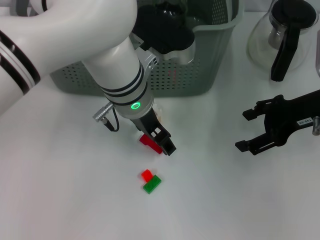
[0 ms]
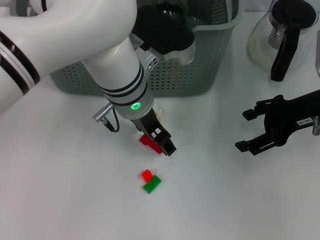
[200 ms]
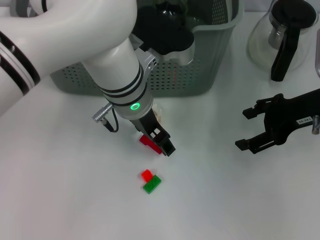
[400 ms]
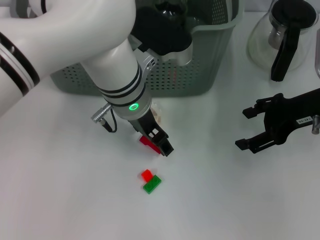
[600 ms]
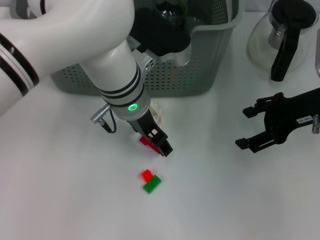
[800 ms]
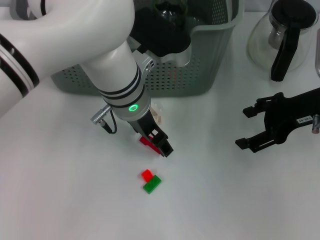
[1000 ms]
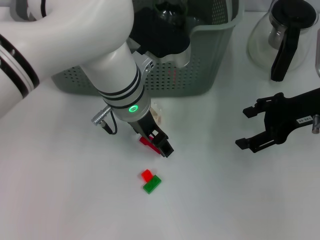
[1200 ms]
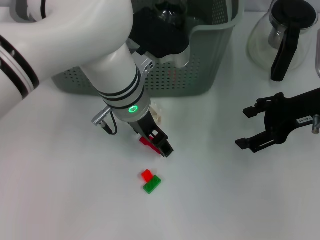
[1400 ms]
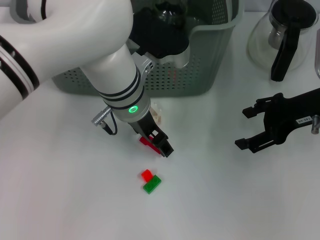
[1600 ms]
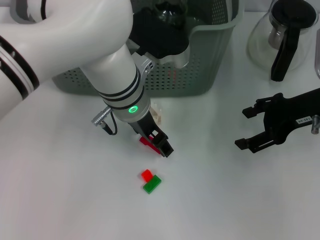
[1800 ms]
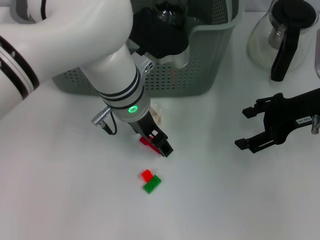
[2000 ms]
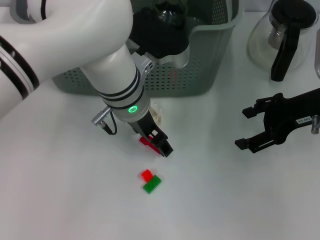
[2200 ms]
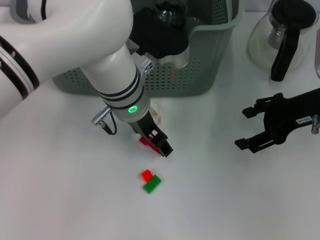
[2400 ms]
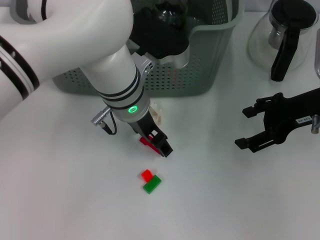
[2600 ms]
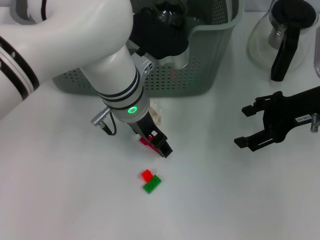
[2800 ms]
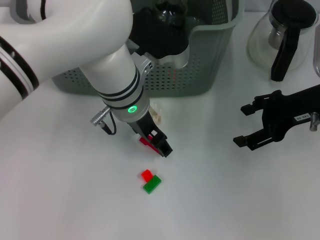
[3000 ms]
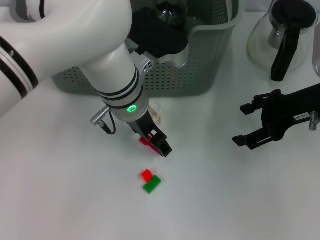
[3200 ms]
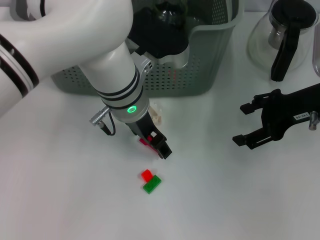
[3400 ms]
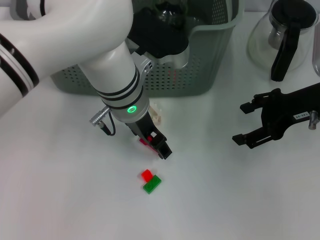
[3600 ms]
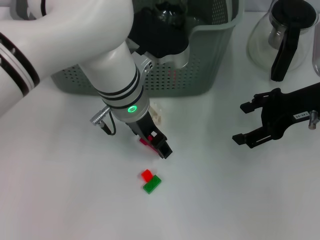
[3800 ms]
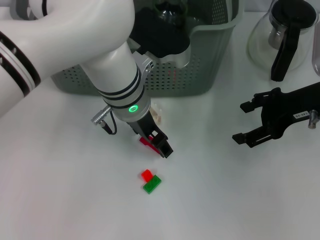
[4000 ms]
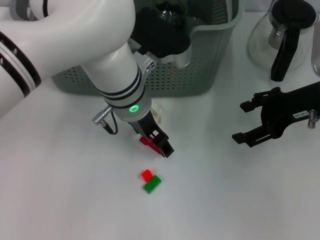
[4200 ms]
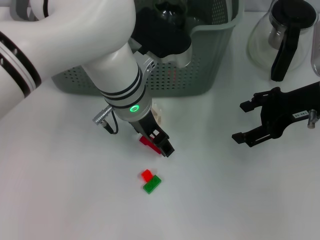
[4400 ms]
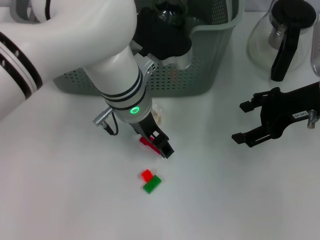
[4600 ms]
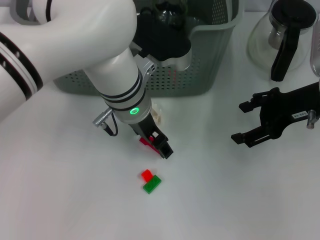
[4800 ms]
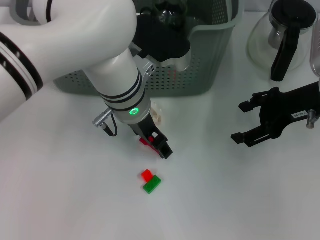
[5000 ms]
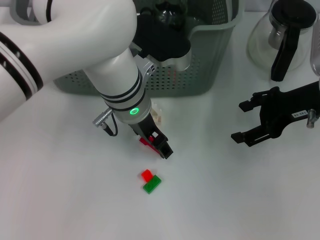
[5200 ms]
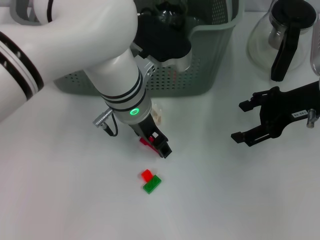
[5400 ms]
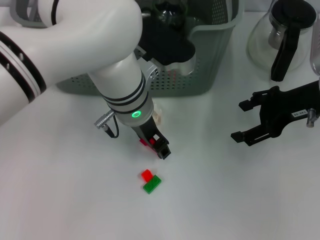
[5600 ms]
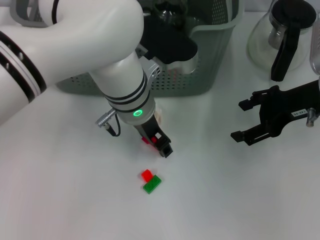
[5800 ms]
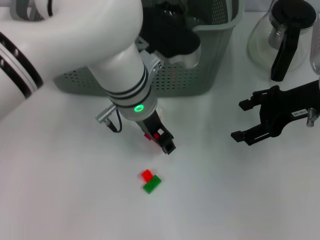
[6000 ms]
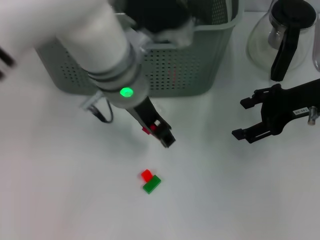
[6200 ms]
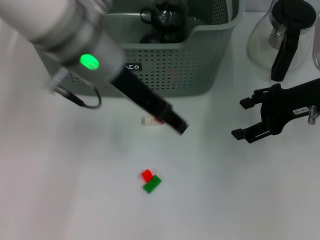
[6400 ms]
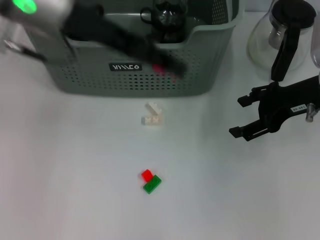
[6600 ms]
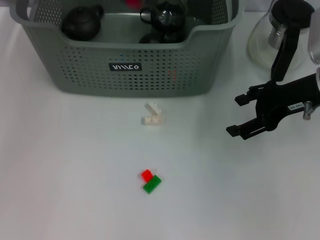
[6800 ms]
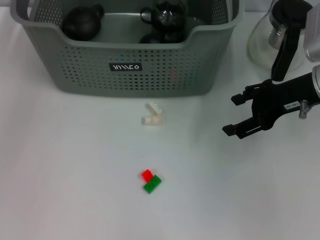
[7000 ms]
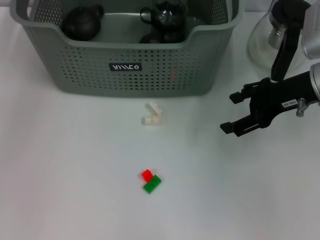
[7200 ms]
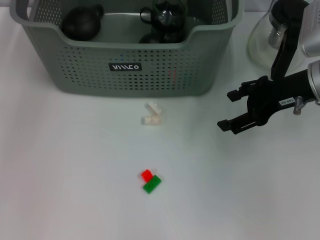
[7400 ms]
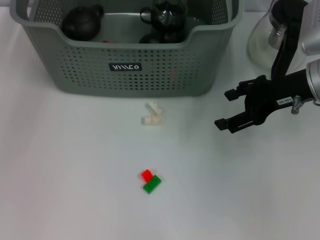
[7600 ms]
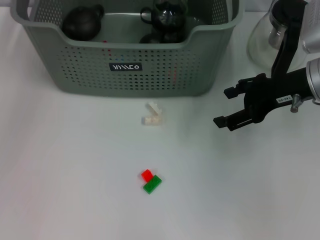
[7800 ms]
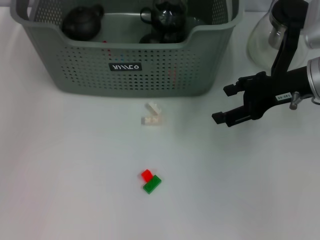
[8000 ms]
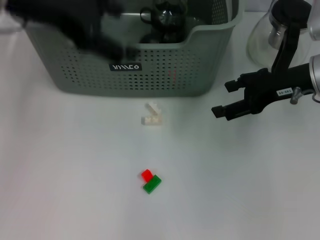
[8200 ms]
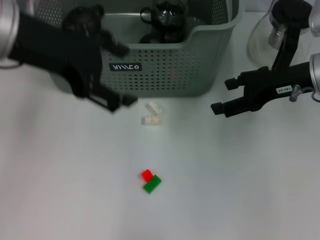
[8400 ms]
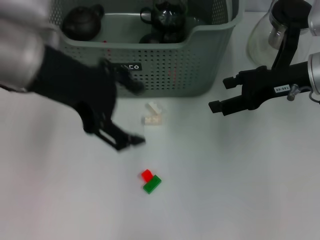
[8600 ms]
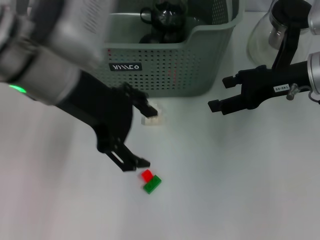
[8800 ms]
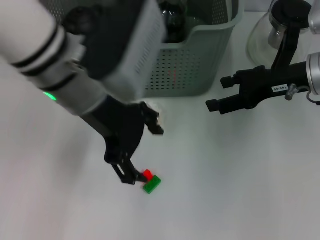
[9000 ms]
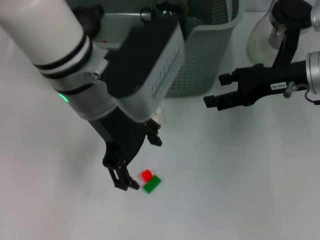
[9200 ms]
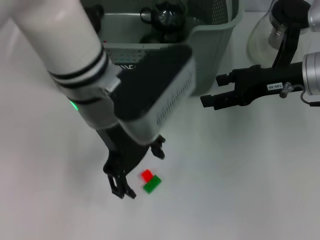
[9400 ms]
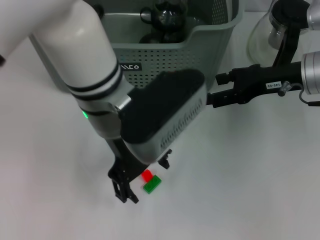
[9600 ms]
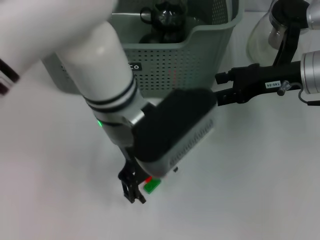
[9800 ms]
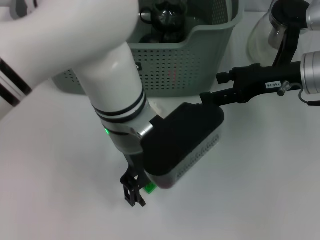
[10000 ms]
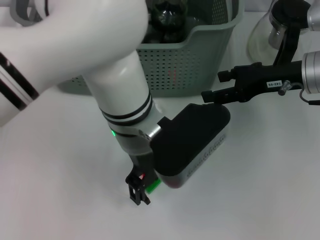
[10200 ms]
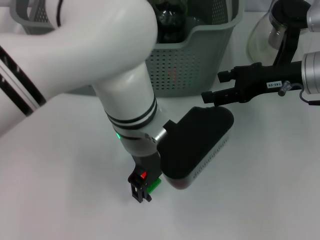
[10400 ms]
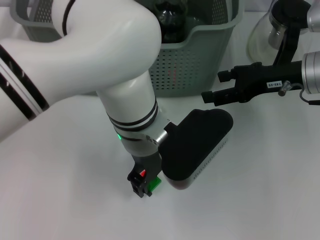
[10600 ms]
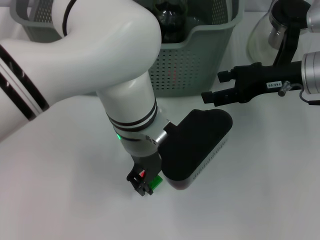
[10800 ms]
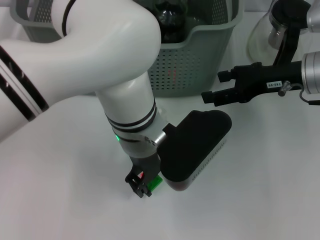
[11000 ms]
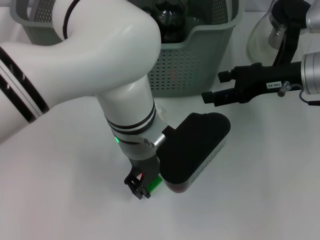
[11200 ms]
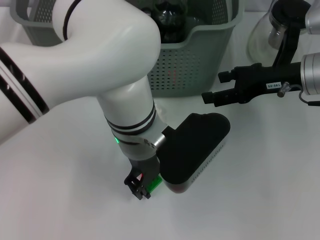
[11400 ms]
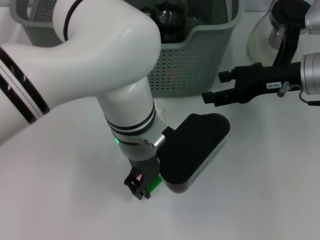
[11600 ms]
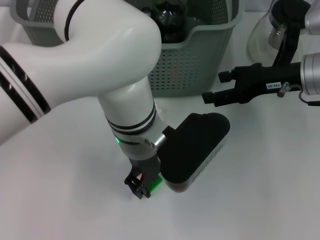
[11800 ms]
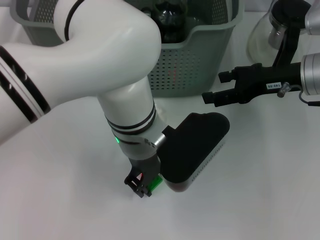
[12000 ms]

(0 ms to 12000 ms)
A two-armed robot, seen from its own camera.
Task of the whole recording: pick up the teacup on the table and place it into the storage bin, pick up the block on the table and place it into the storage bin.
Step, 0 ms - 5600 ms: Grasp the red block with left gripper.
Step, 5800 ms - 7800 ms: Place the red block in the storage box with left gripper.
0 ms - 4400 ms: The two grippers keep their place.
4400 ms - 6000 ms: Neither gripper changes place.
6000 ms - 7600 ms: The left gripper shifts some 25 cm to the left, upward and forward.
7600 ms - 9000 ms: The left gripper goes approximately 20 cm backward, to the right and downward.
9000 ms - 10400 ms: The left gripper goes roughly 10 cm to the right and downward.
10400 ms - 12000 ms: The left gripper closes.

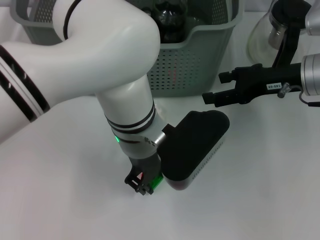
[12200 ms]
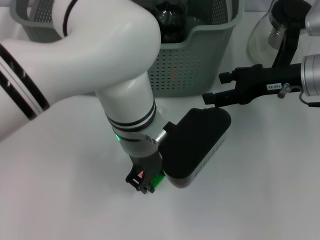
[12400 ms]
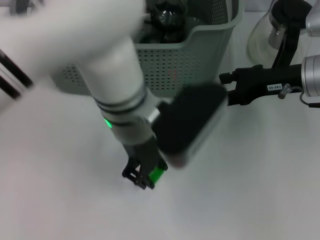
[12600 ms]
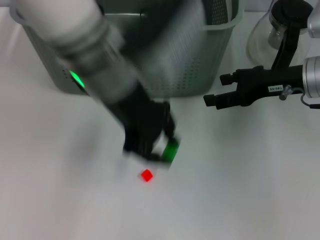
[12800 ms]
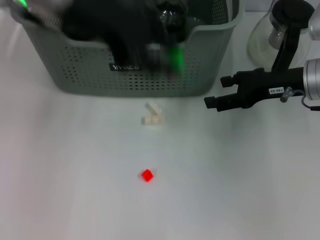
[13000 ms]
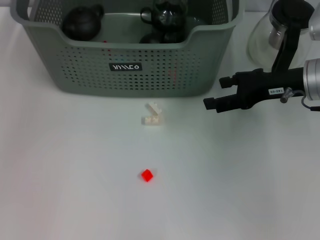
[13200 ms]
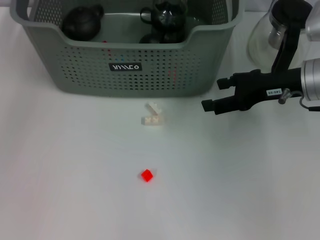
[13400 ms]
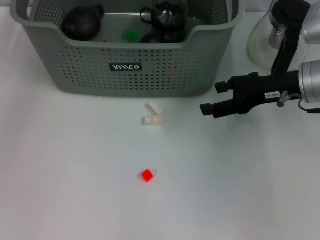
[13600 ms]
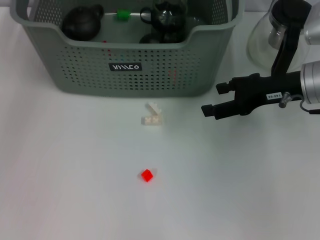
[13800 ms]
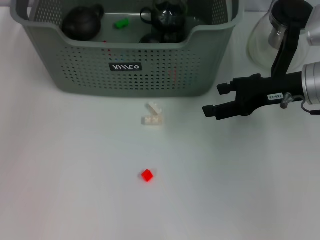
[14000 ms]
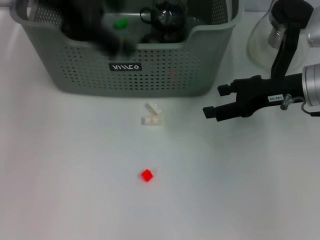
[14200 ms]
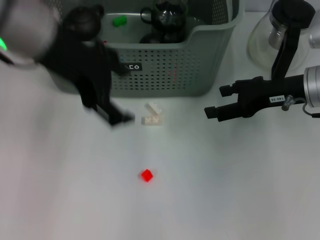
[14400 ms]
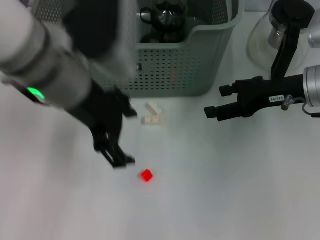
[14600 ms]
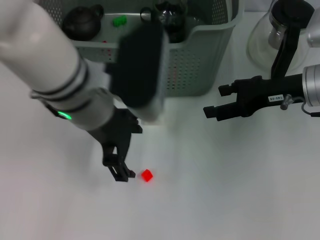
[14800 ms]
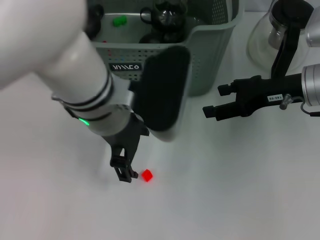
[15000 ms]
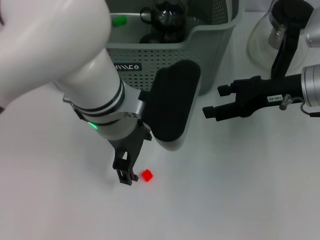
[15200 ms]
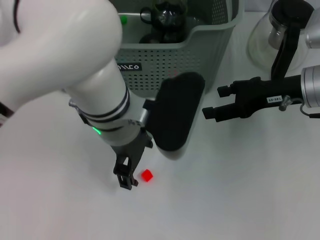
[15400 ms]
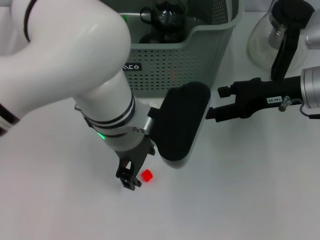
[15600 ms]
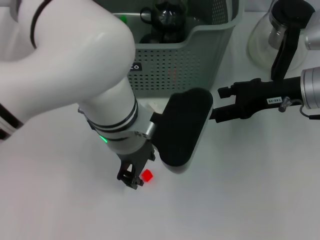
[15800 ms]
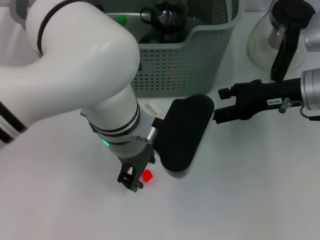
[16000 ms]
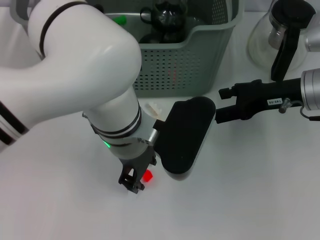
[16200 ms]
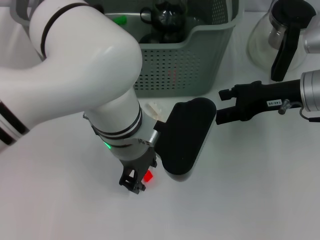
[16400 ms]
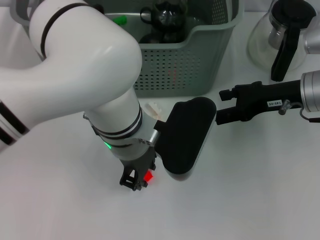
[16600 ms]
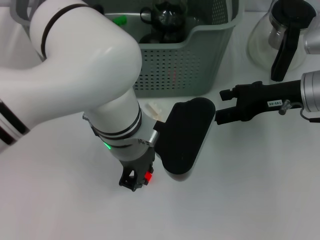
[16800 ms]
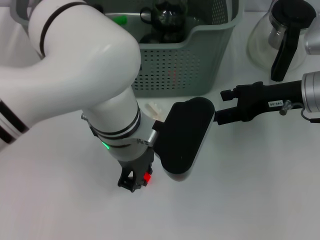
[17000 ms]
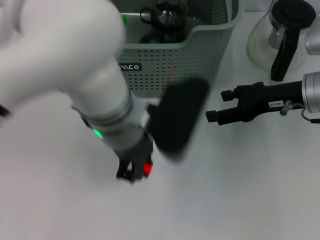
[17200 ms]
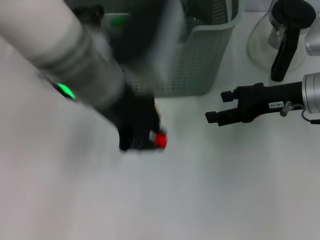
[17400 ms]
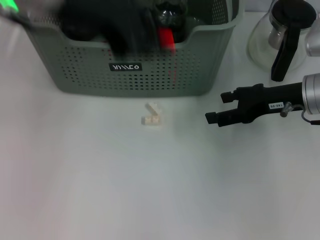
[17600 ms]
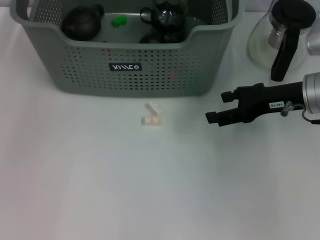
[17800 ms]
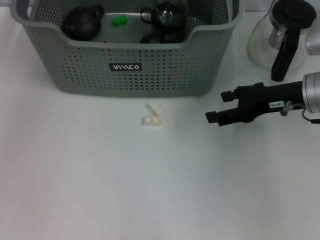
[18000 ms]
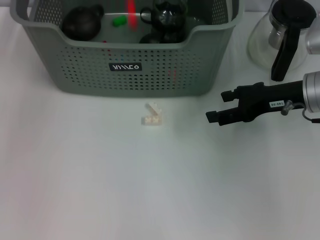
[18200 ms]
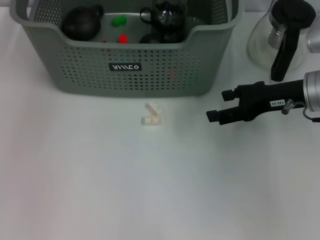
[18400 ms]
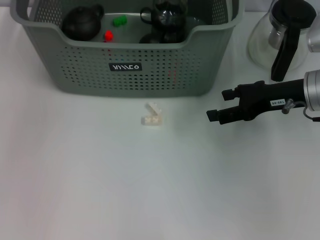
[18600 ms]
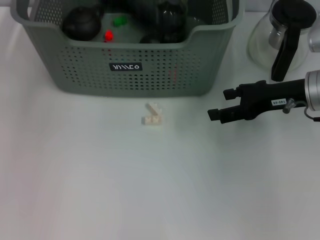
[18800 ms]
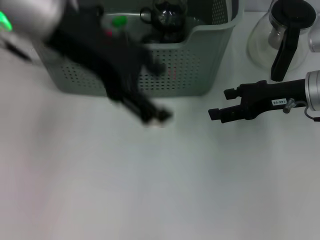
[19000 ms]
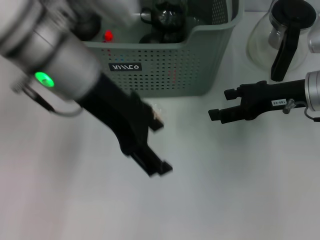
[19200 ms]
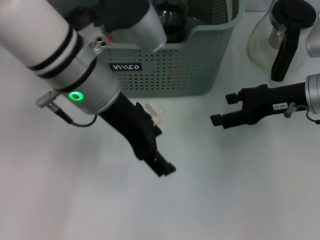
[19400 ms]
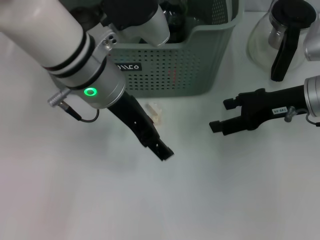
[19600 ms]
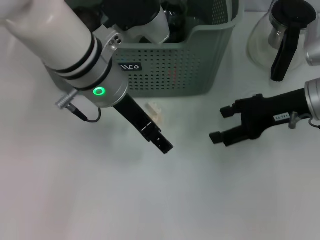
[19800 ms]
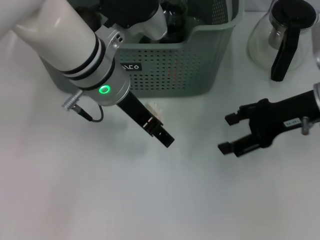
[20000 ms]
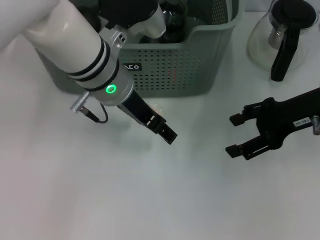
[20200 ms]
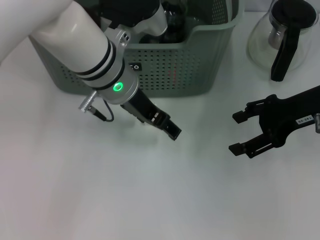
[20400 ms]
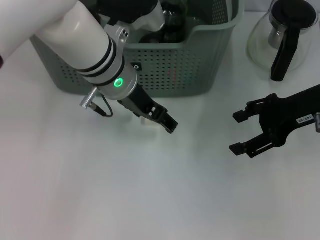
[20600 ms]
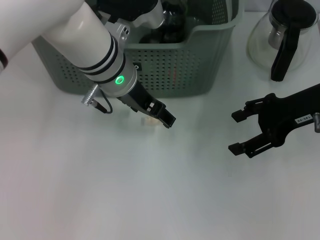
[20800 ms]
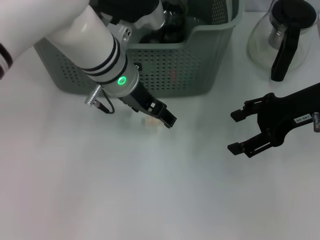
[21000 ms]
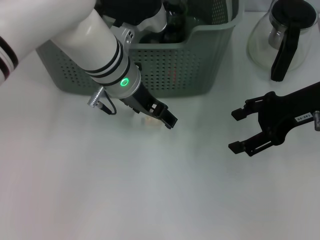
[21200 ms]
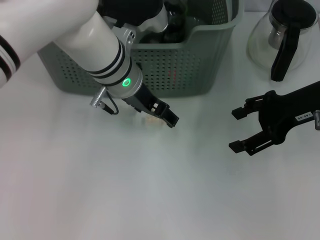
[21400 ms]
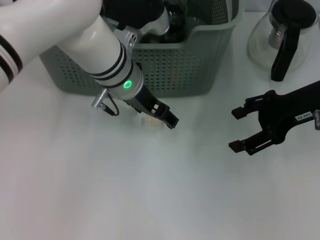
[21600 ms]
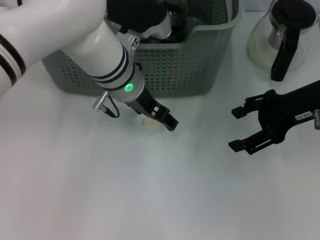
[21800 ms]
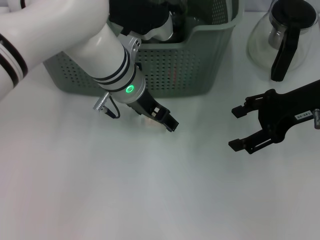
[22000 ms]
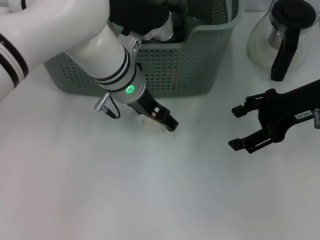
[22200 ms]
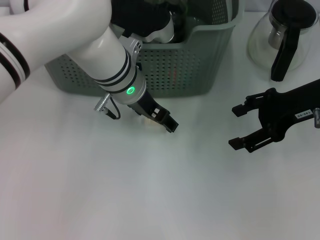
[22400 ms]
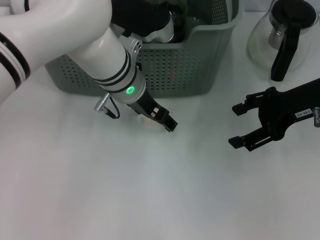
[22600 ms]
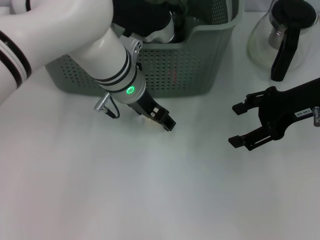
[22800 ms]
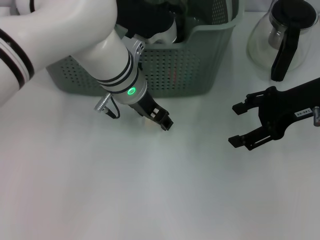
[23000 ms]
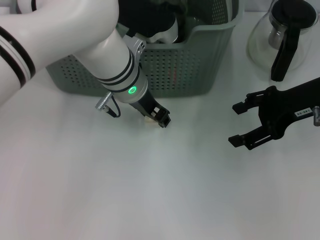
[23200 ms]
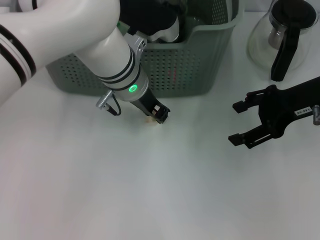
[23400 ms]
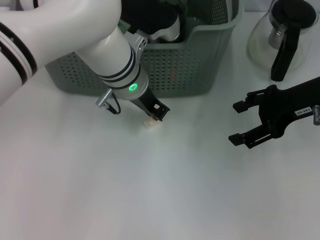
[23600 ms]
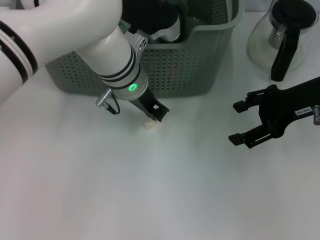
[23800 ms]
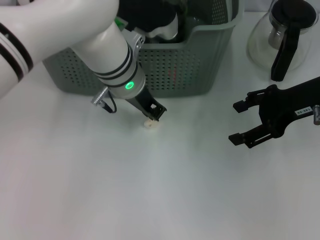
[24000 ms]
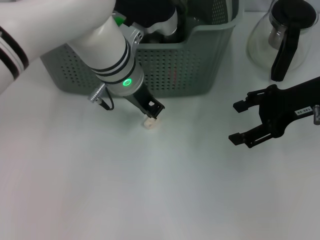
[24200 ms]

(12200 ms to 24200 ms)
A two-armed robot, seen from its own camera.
Task of the whole recording: pick up the teacup on the table and place it into the storage bin, pick up the block on the table and place it into the storage bin.
Step, 12400 ms - 13800 ms: Place the green block in the storage box with left gripper.
Step, 14000 ms - 16800 ms: Grasp the orange block with left gripper.
Step, 17000 ms - 18400 ms: Place the orange block in the storage box with left gripper.
12200 ms - 13800 ms: The left gripper goes approximately 30 cm to the left, upward and forward.
13800 ms - 15200 ms: The left gripper moves to the right, backward and downward, about 25 cm, and opens.
15200 ms - 16600 ms: The left gripper closes up.
16600 ms - 18200 ms: The left gripper shifts roughly 30 cm forward, upward and to the left.
18200 ms - 19800 ms: The left gripper moves backward, to the right and downward, roughly 20 cm, and opens its fingers.
19800 ms - 21200 ms: The left gripper changes place by approximately 5 cm.
21200 ms - 22600 ms: The grippers move only a little.
22600 ms - 24200 ms: The left gripper closes up.
